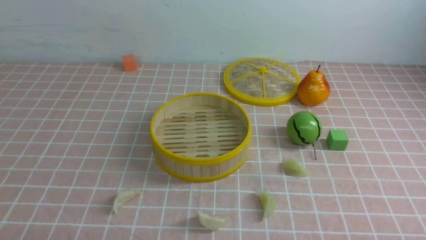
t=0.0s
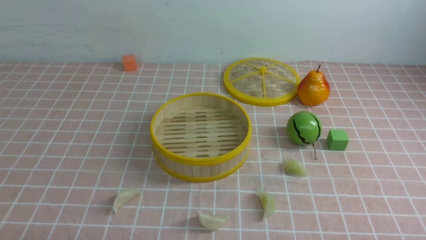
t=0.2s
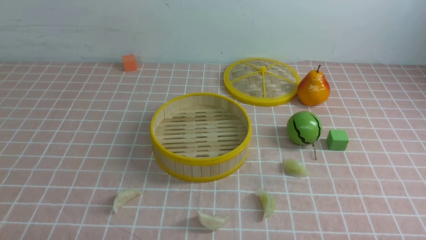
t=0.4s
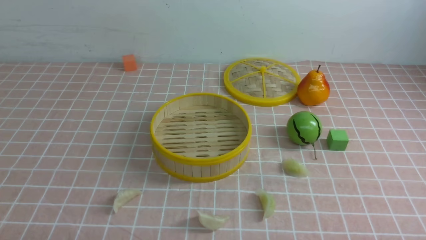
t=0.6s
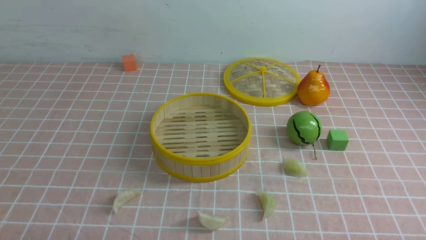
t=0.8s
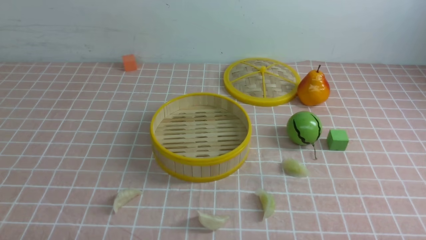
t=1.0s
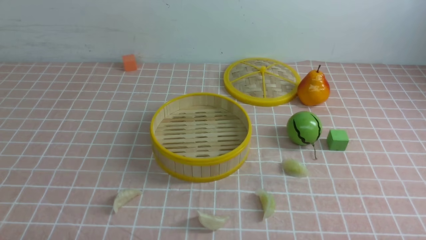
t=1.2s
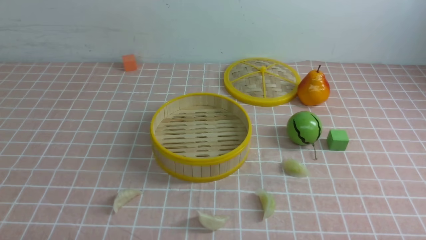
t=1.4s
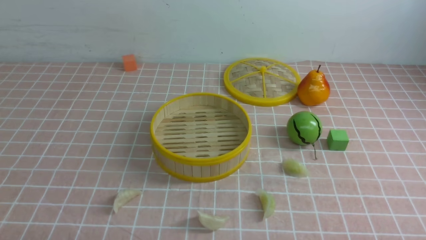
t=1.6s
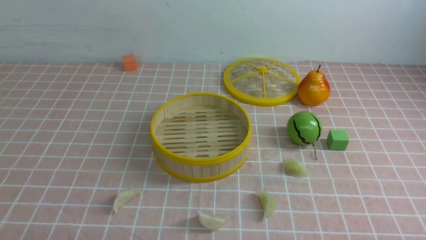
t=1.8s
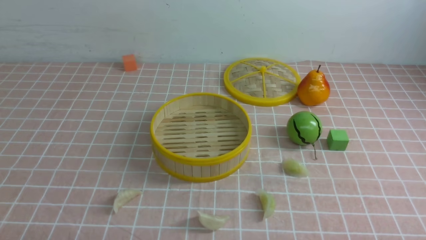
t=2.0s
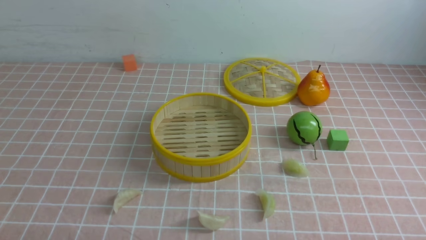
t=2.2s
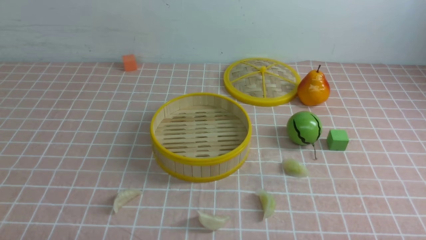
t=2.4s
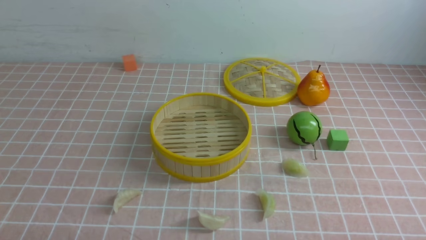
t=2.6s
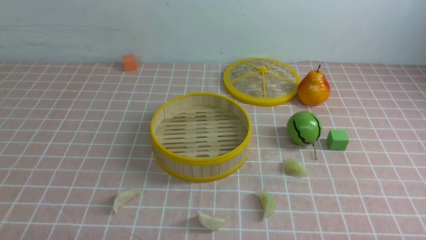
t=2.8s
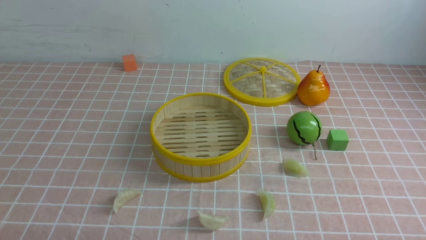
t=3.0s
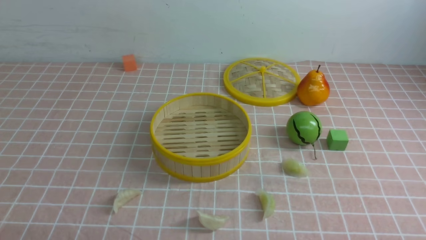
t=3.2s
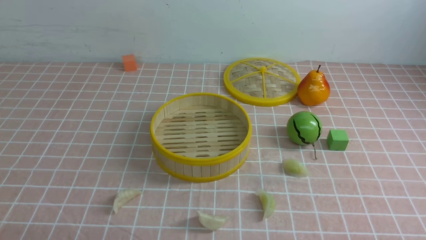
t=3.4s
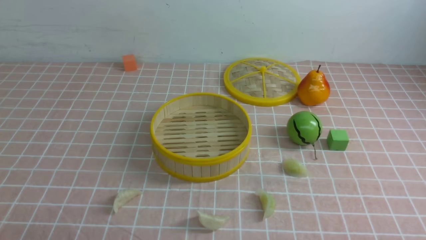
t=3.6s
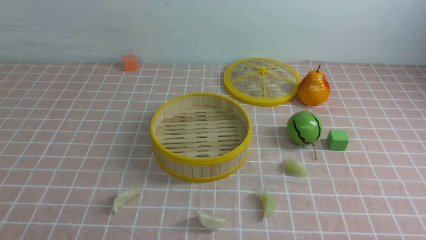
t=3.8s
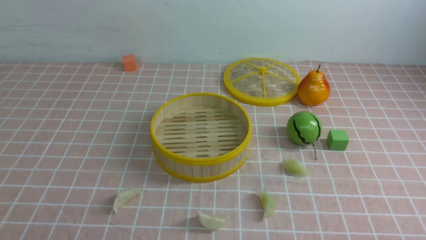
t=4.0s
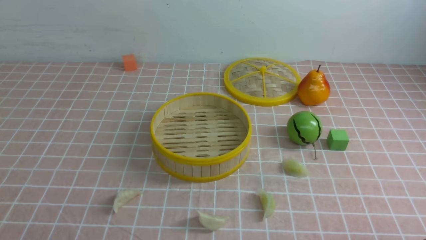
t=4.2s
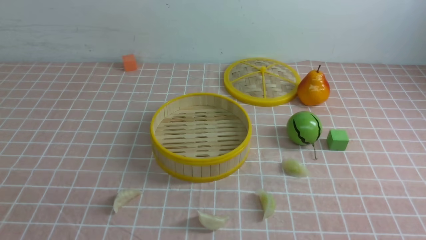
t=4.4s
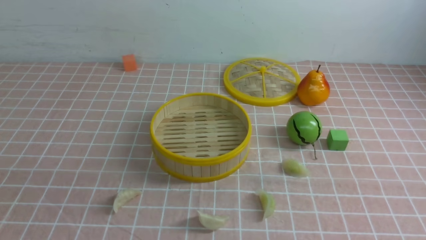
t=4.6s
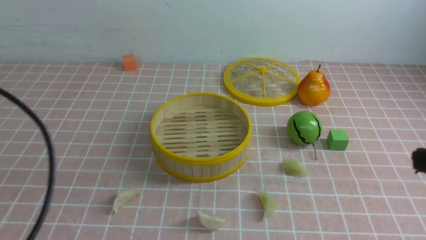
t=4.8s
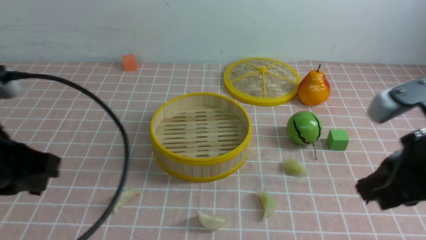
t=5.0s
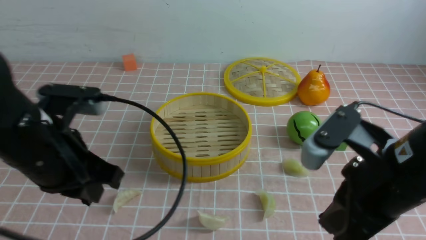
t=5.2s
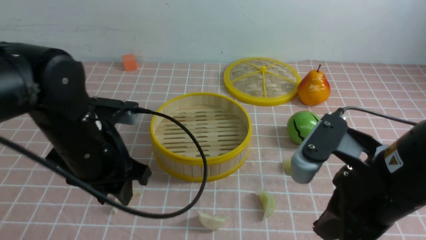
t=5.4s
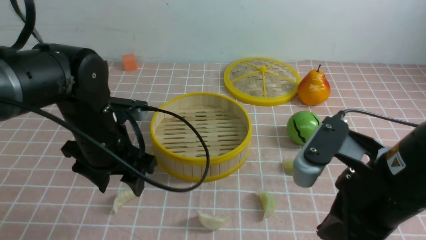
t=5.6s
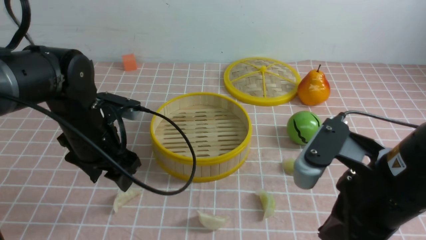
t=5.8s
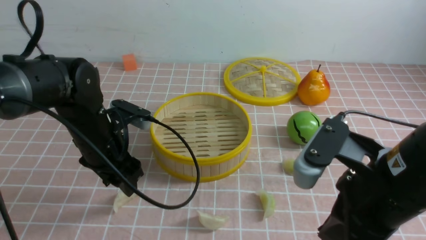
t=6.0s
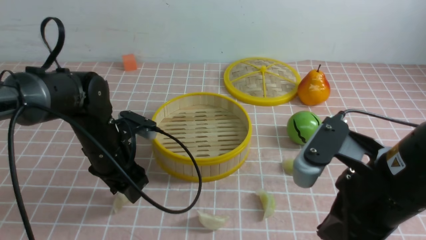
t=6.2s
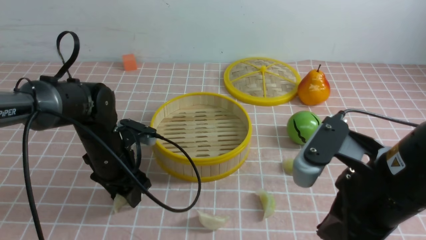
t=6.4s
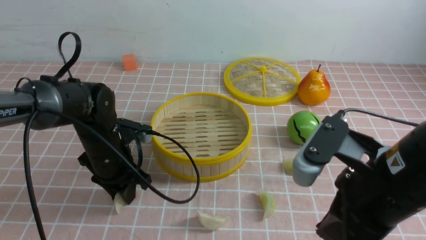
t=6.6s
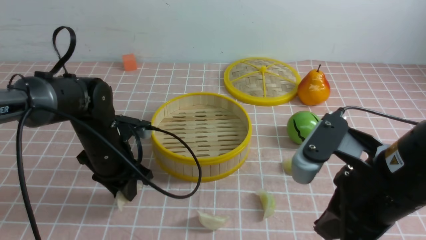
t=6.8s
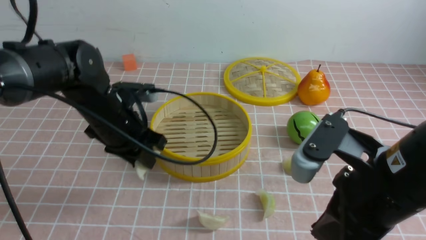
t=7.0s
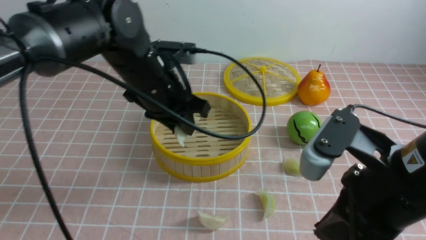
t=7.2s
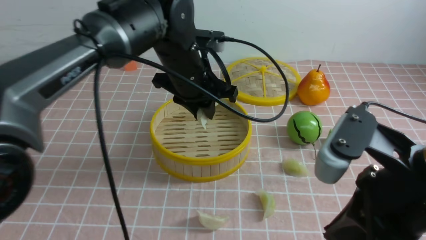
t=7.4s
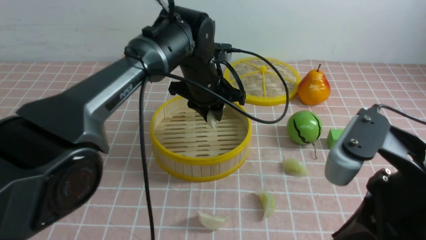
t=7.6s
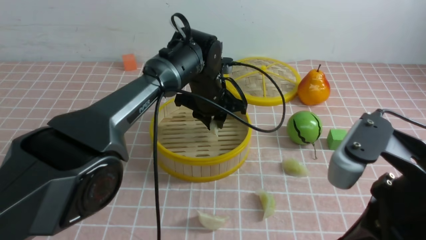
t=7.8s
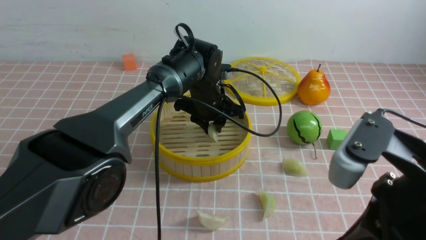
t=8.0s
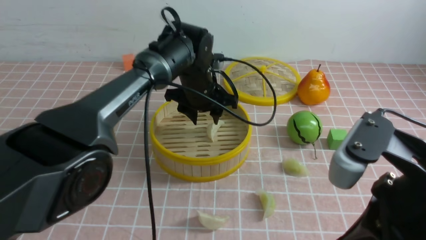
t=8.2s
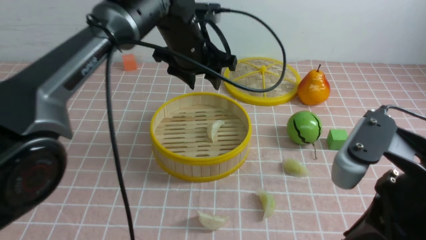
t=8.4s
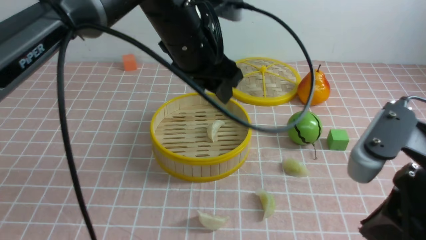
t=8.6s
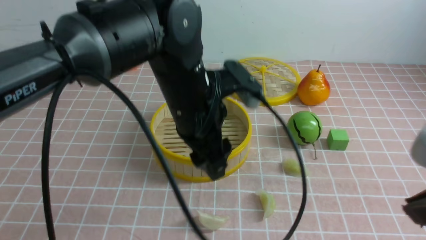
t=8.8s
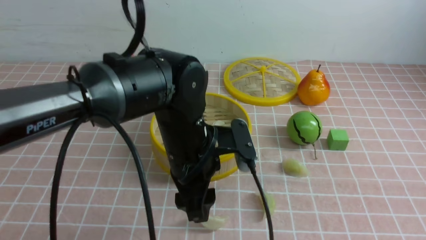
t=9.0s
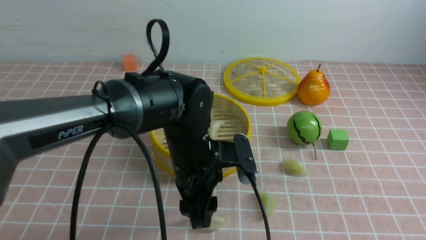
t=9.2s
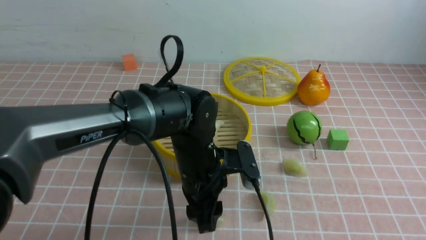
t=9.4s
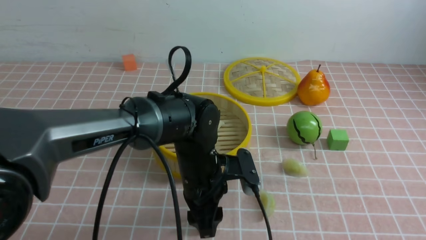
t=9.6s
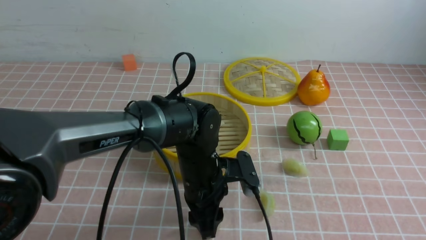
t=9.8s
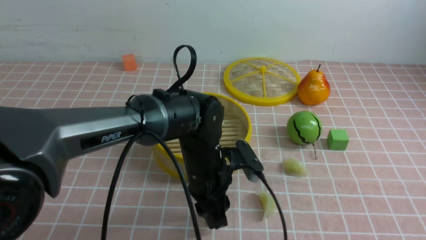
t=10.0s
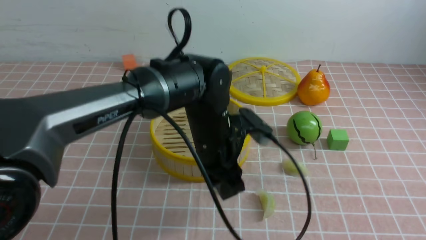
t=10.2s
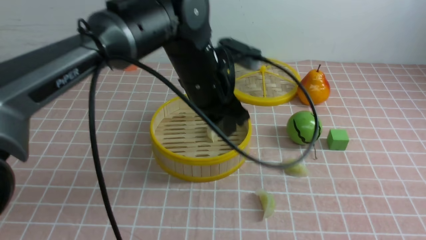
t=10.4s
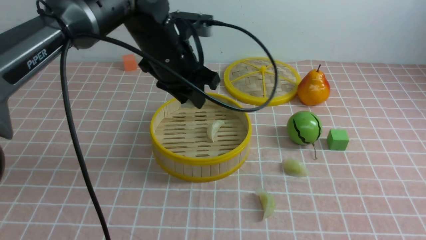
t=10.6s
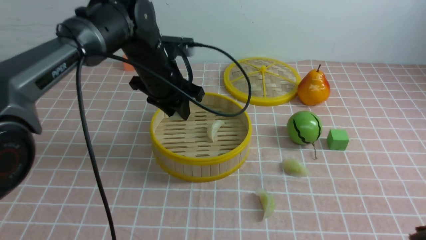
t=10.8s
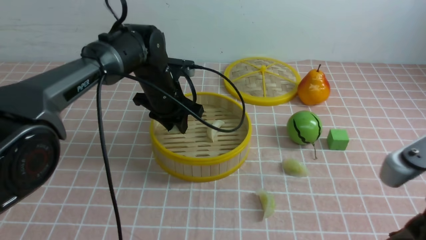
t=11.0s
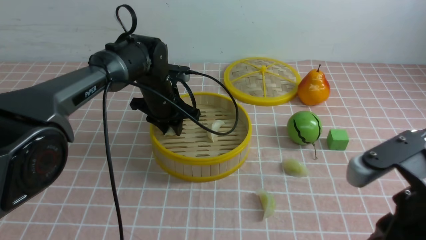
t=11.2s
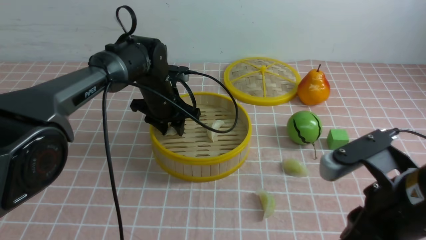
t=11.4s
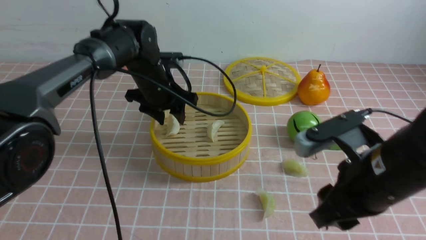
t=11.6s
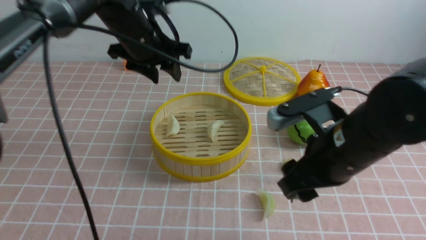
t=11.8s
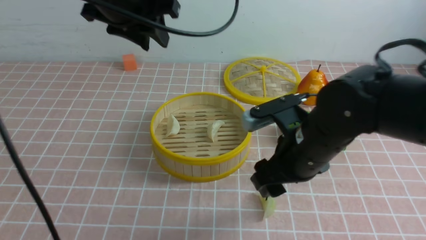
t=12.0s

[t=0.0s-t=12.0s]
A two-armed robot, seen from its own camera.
Task of the whole recording: put the dumplings into the steamer on the table with the pink tablecloth.
Step, t=0.0s to t=6.6s: use the left arm to grab a dumpling.
Step, t=6.8s to t=8.0s: use the left arm to put the dumpling into the steamer.
Step, t=8.2s to t=9.8s: use the left arm to grab a dumpling.
Step, t=10.2s to t=11.4s: use the left arm to put the dumpling into the steamer.
t=0.0s to t=1.6s: Both grippers stay put.
t=4.4s to t=6.0s: The right gripper shifts some 15 cm to the left and forward, while the left gripper shifts approximately 30 cm forward, and opens.
t=6.0s to t=7.6s: The left gripper shifts roughly 20 cm to the right and forward, and closes its fingers.
t=7.6s to t=9.0s: The left gripper heads backward, covering roughly 15 cm, and opens, while the right gripper travels to the right, backward and upward by roughly 10 cm.
t=9.0s to t=10.4s: The left gripper shifts approximately 5 cm forward, and closes up.
t=10.4s to t=12.0s: The left gripper is displaced upward and to the left by approximately 15 cm. Meanwhile the right gripper travels forward, to the left and downward by about 30 cm, and opens.

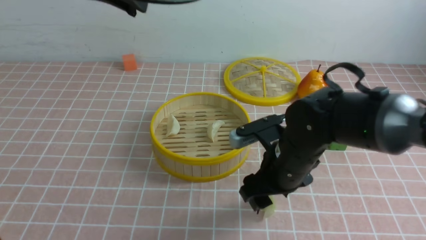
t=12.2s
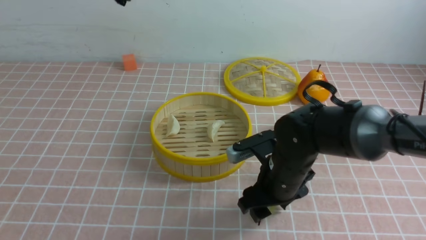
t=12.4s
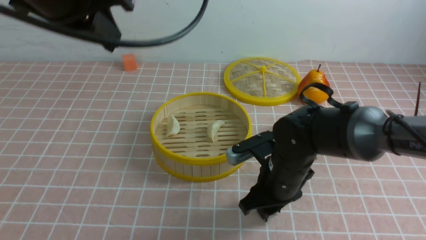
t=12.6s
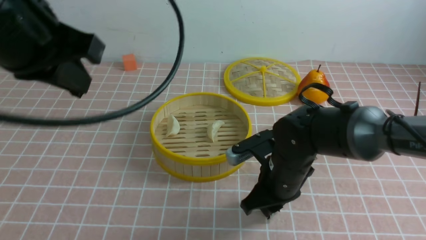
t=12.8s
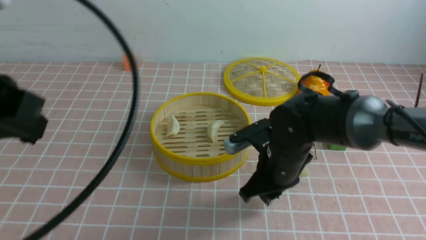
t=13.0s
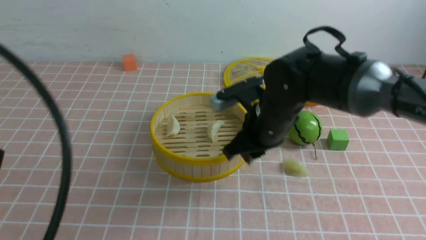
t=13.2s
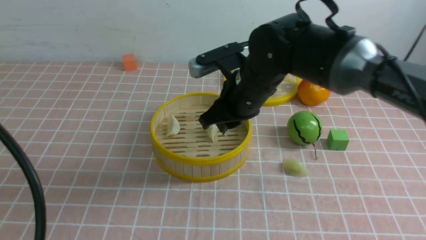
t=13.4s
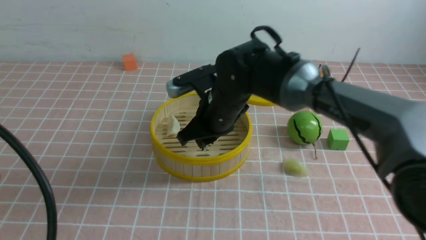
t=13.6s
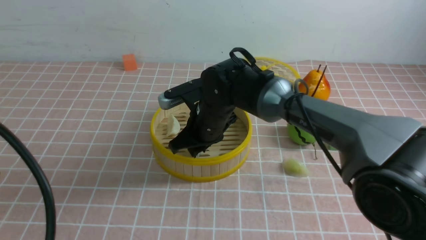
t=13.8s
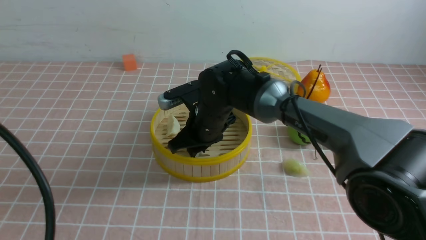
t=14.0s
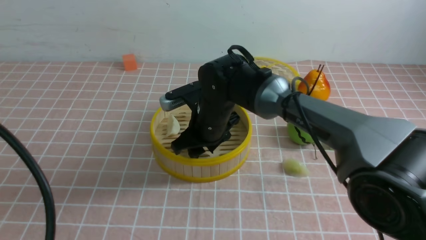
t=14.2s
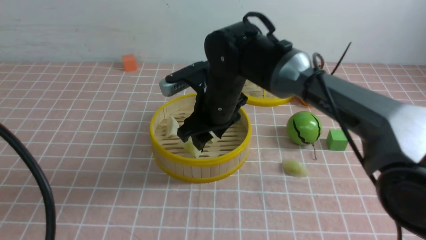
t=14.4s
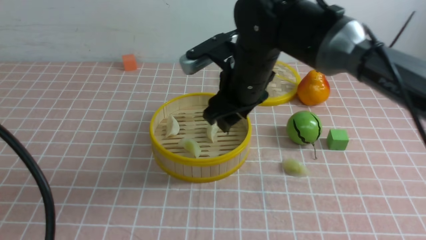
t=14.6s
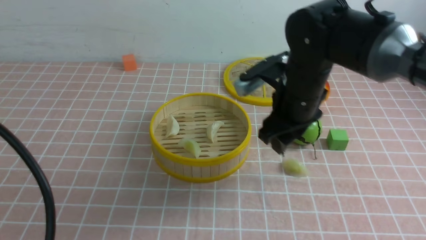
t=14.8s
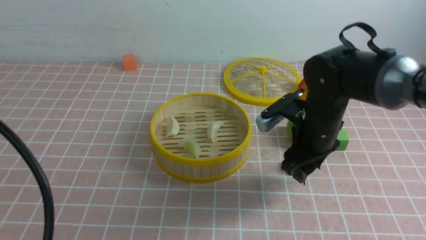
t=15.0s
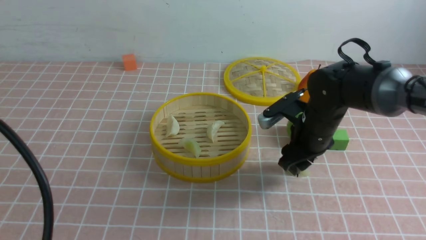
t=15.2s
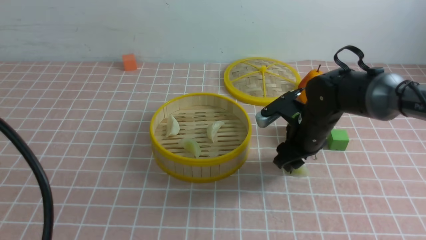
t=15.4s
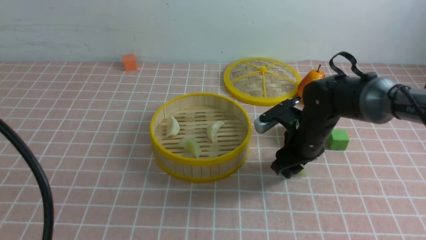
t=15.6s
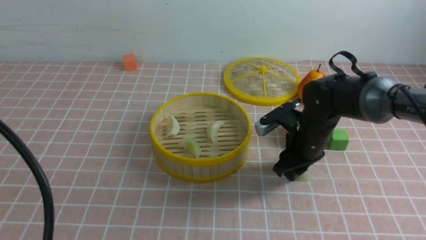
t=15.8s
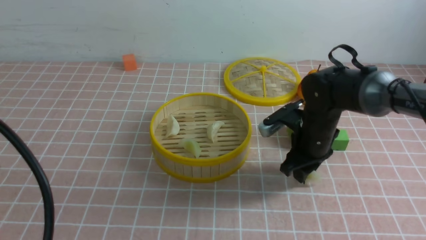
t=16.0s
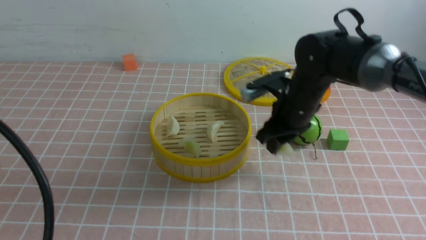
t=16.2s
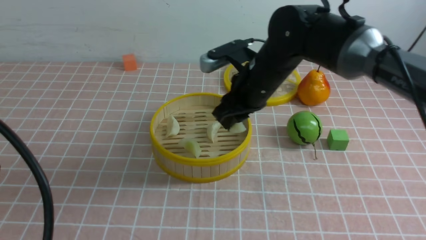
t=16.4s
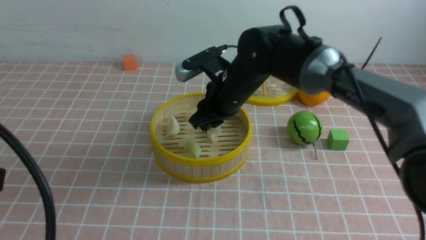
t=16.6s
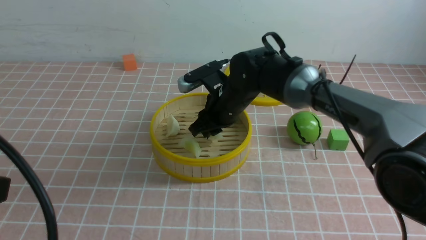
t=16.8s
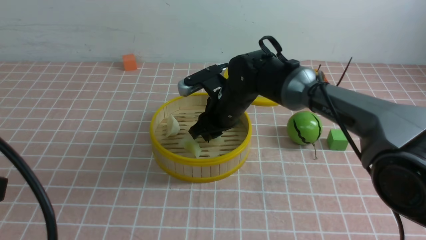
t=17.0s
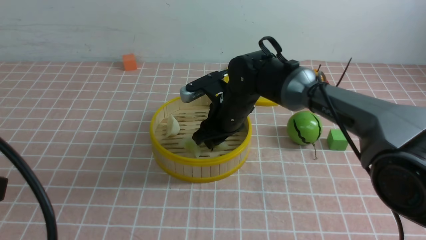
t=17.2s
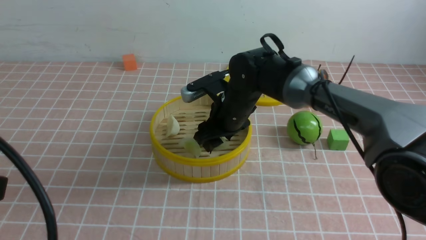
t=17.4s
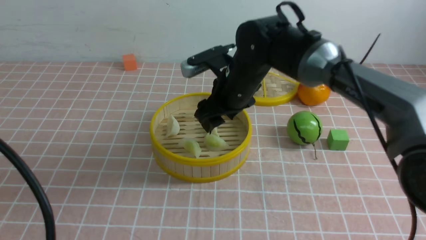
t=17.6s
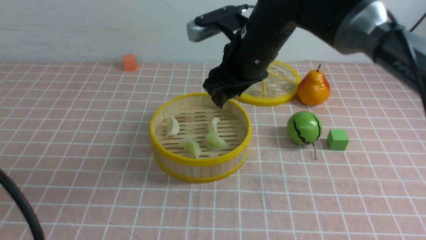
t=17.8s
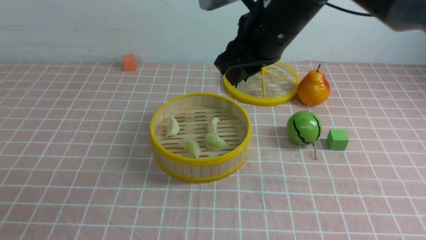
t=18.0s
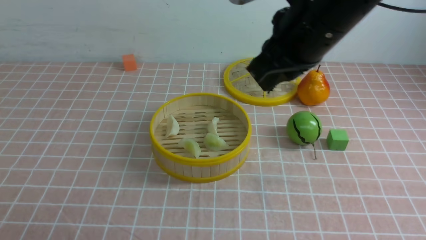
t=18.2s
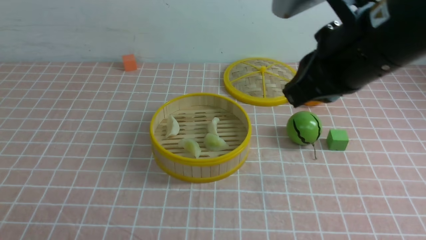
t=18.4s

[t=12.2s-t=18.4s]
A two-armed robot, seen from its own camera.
Task of the whole recording: put the dumplings into the steamer on the table with the pink tablecloth.
Step, t=13.0s to t=14.4s: use the right arm to put the dumpling into the steamer.
Step, t=14.6s to t=15.4s: use the right arm to grab a dumpling.
Step, t=15.6s to t=17.2s: use the right arm to put the dumpling into the steamer.
t=12.2s to t=13.8s: The right gripper heads to the left and forward, covering approximately 15 cm, and closes. The left gripper is displaced backward by some 25 cm.
t=13.8s to t=15.4s: The right gripper shifts roughly 15 cm to the right, and opens its fingers.
t=15.4s to t=16.8s: The right gripper travels to the left by about 15 cm.
t=16.8s to t=18.4s: The right gripper heads upward, backward and to the right, covering about 30 cm, and closes. The left gripper shifts some 10 cm downward and backward.
